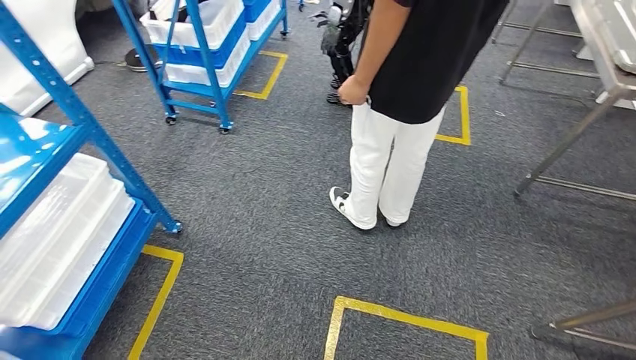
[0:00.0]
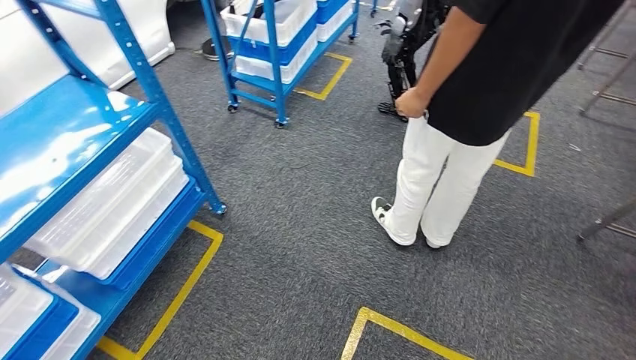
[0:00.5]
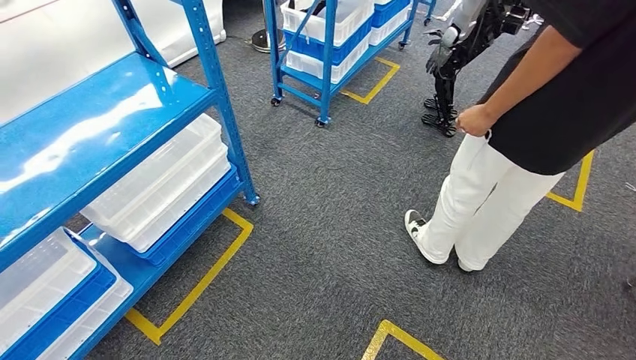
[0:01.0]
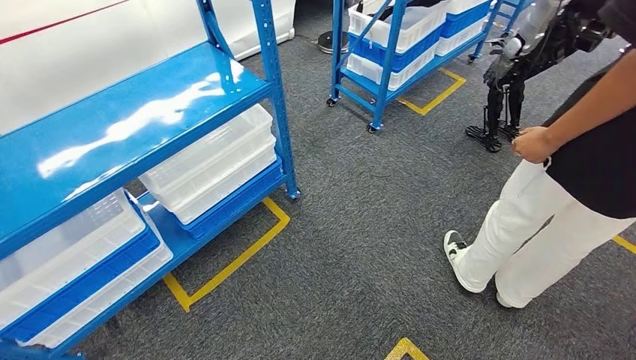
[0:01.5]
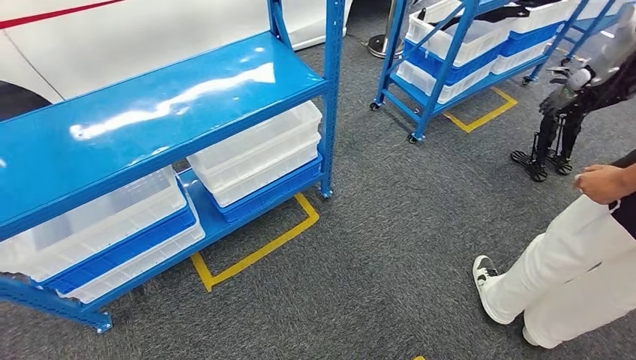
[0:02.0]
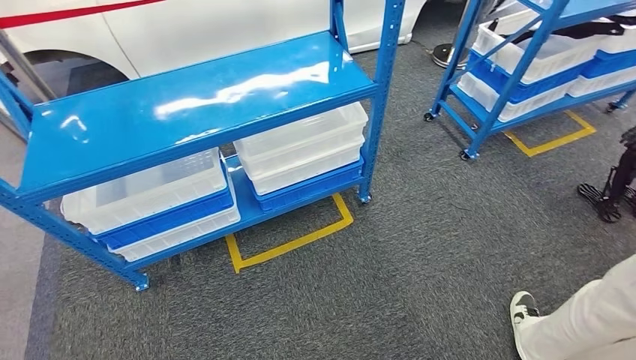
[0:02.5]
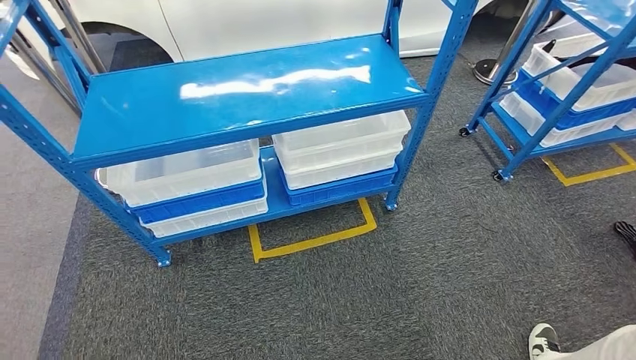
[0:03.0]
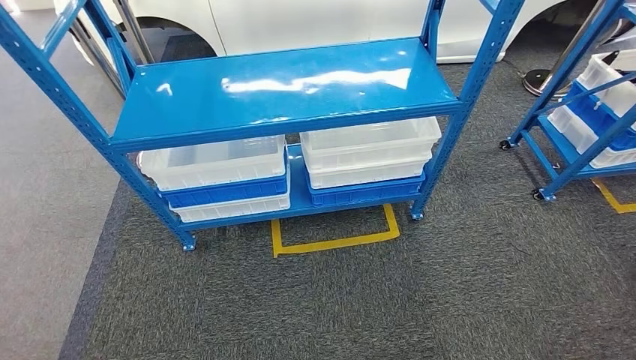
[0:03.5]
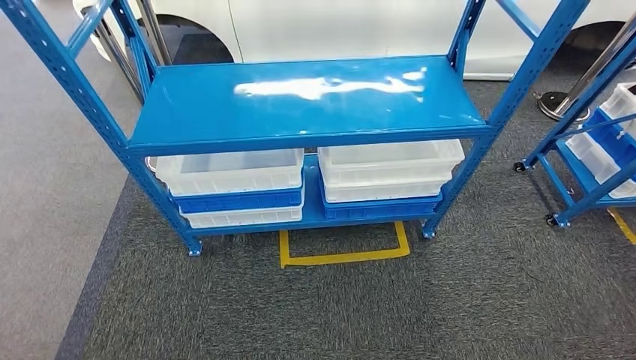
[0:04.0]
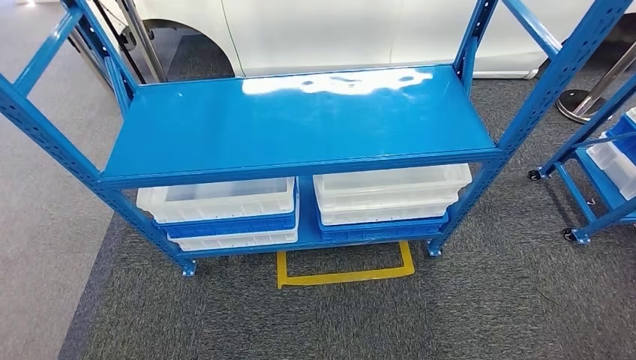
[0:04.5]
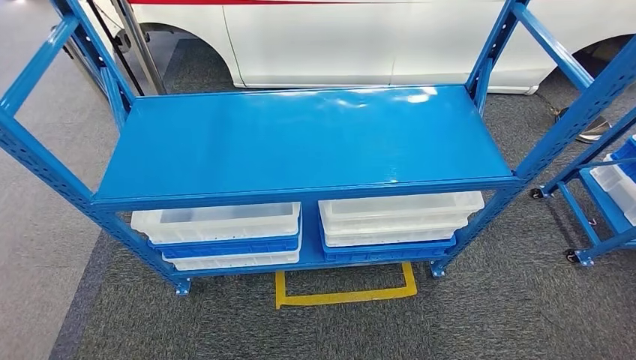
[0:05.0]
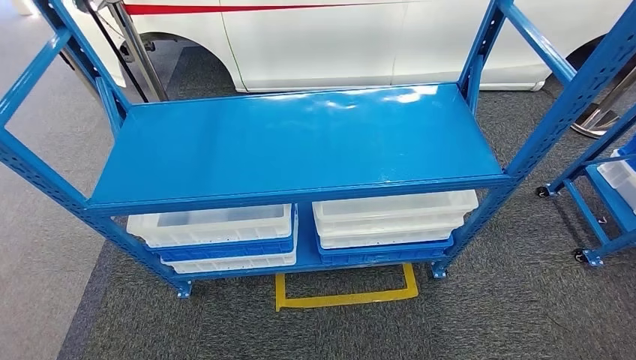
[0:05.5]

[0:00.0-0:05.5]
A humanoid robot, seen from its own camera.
Step, 0:00.0 to 0:03.0: Move to the initial position of the shelf.
